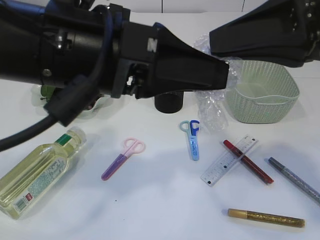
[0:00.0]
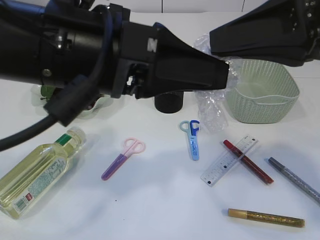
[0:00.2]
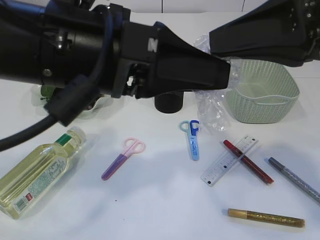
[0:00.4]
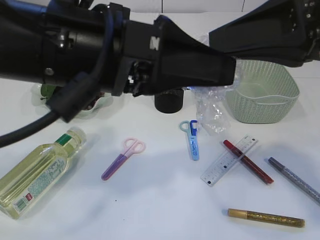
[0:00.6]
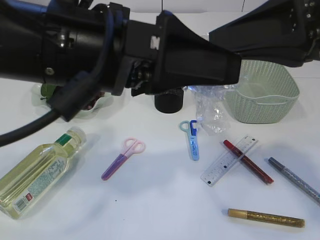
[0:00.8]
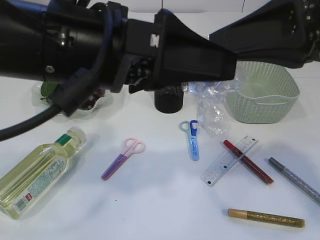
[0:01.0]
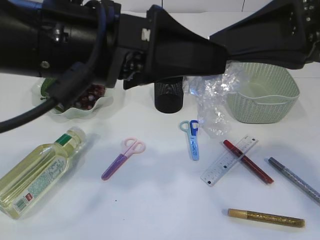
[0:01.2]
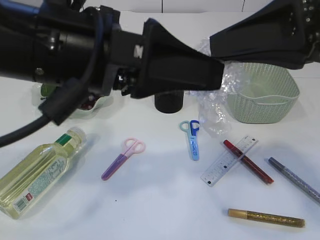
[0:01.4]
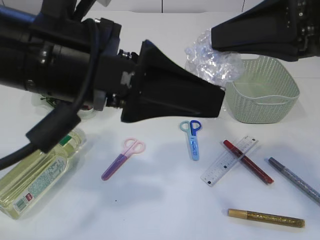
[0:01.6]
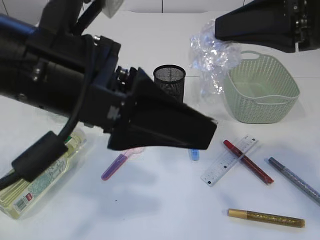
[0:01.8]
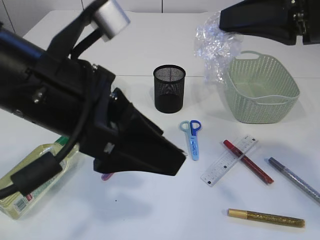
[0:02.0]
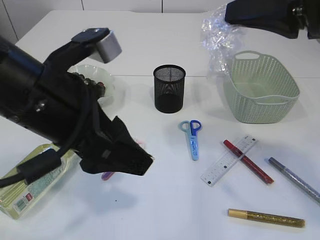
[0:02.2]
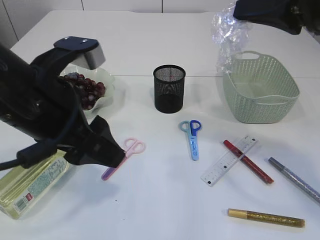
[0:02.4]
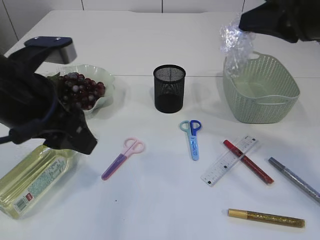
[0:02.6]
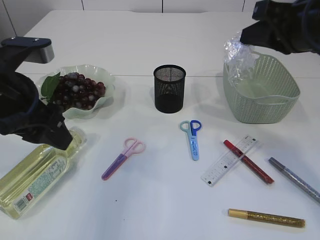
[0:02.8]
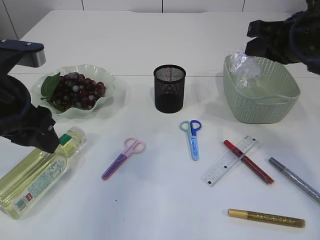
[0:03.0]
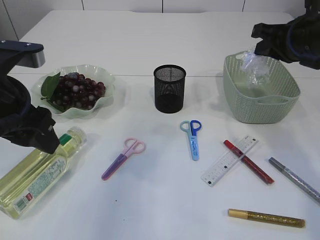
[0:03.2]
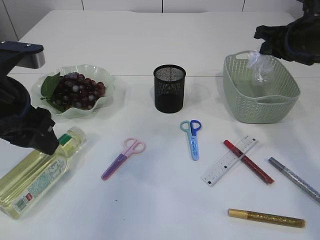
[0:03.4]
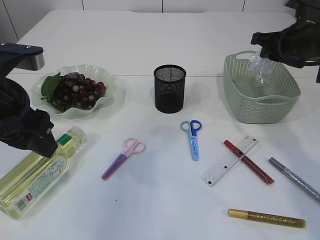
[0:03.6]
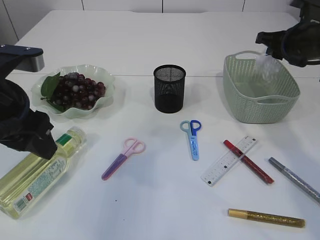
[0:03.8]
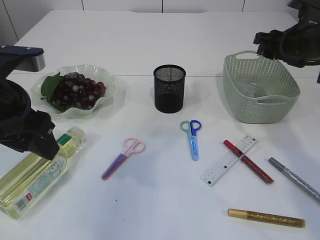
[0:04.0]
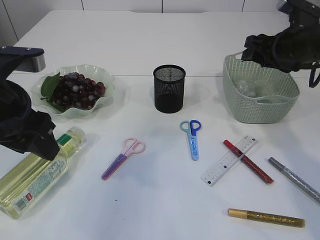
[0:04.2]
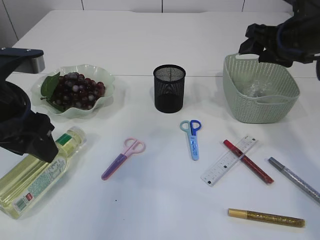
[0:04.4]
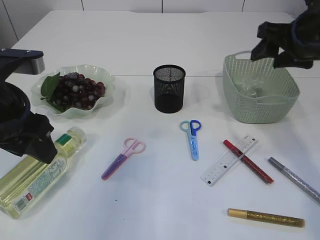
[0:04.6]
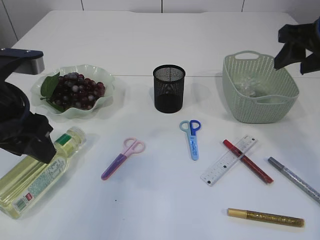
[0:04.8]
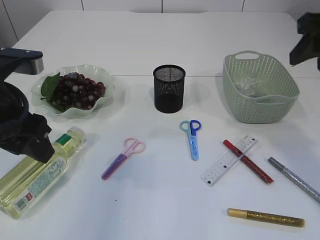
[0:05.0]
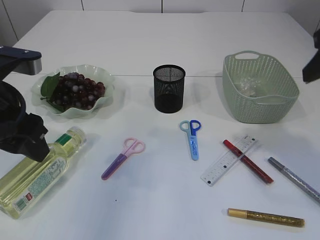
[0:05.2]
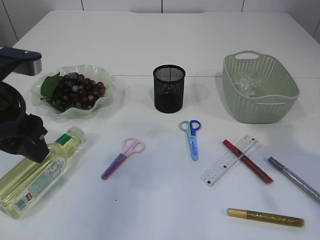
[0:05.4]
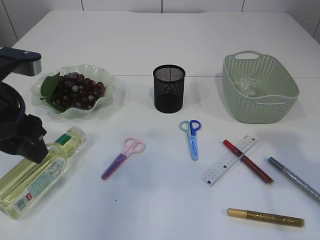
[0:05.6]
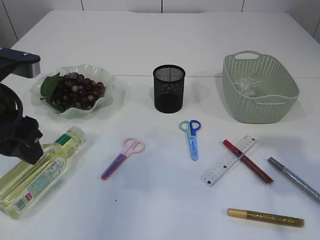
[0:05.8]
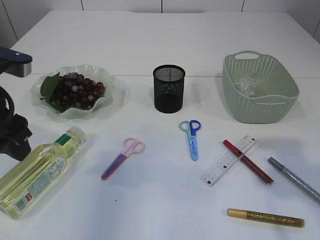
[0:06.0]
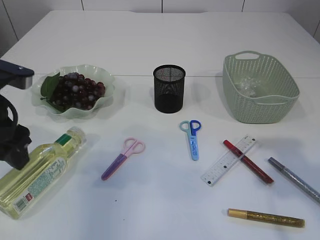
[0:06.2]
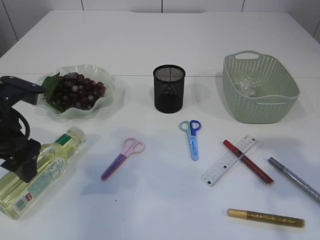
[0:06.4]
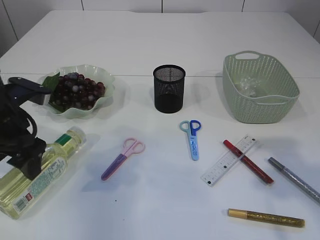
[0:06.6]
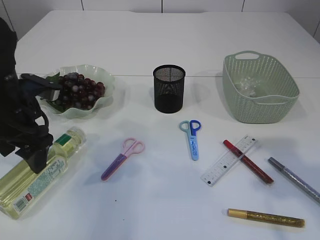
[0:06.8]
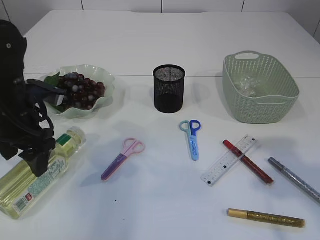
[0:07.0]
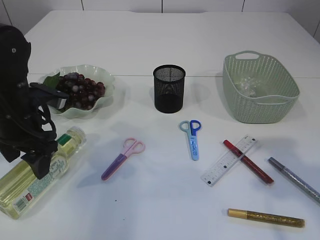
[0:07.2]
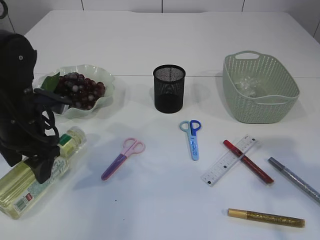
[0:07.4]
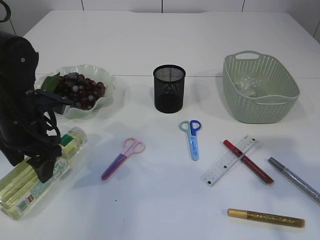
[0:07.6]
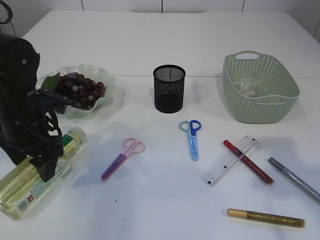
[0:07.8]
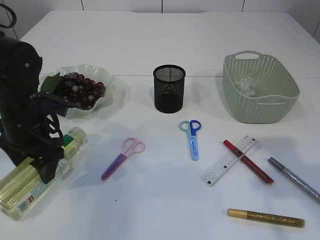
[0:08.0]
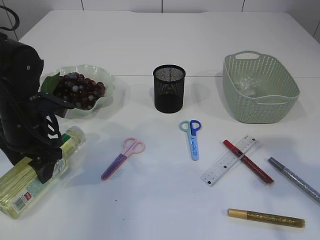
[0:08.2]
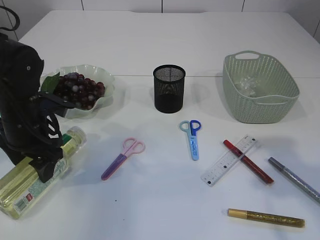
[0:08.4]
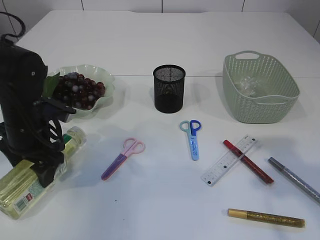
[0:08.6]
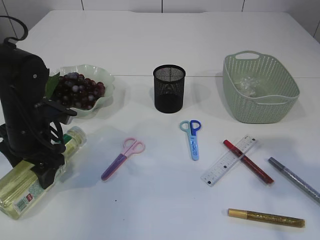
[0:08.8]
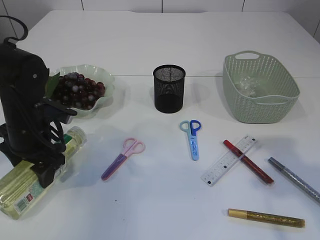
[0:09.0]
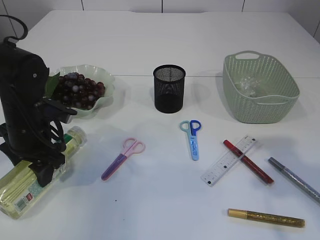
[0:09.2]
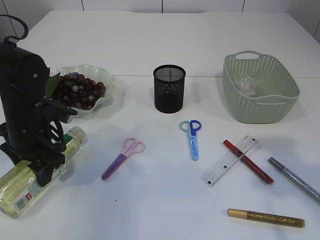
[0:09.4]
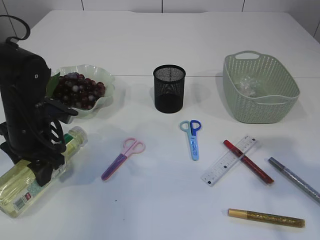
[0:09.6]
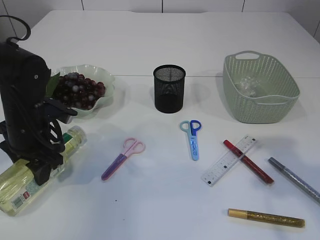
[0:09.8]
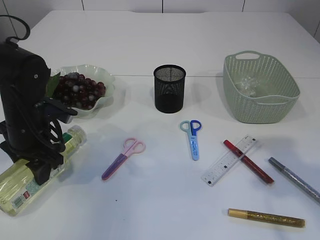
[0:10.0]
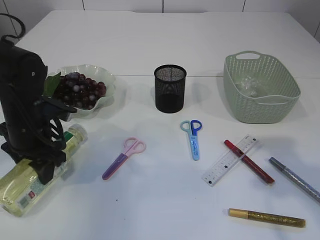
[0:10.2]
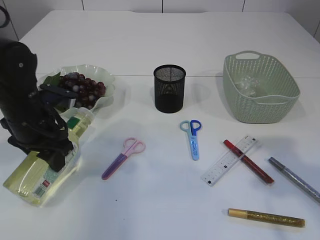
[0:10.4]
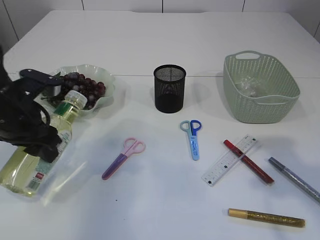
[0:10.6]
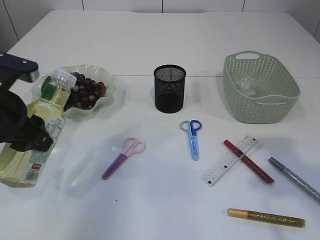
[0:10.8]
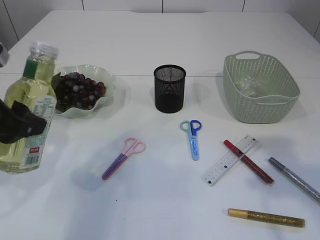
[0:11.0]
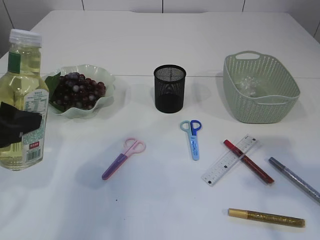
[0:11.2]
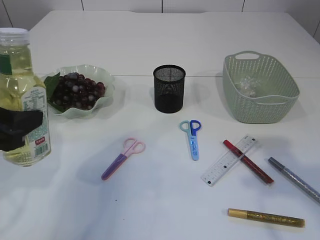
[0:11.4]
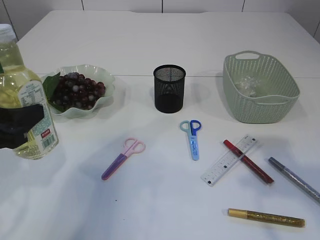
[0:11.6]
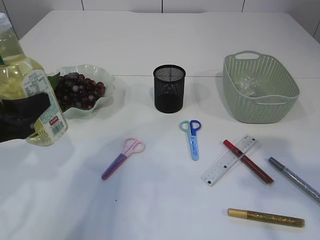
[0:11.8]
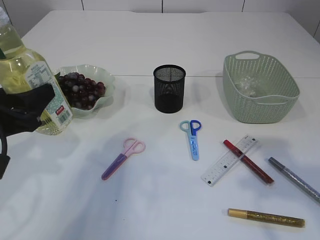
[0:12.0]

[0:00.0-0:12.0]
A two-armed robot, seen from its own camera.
Step, 0:02.0 to 0:04.6: Place the plastic in the basket.
Step, 0:04.8 to 0:10.8: Pick up the bottle with the left arm.
0:00.0 to 0:01.6: The left gripper opens.
0:01.6 to 0:03.0: The left gripper moves to the left, downward and forward, approximately 15 cm. Meanwhile the right gripper is displaced forward and downward by approximately 15 cm.
0:03.0 to 0:04.4: The right gripper is displaced forward by roughly 10 cm, and opens its fingers.
0:04.4 to 0:06.0: The right gripper goes approximately 25 cm backward.
0:06.0 to 0:07.6: The left gripper travels downward and forward by about 10 cm.
0:07.6 to 0:10.4: The grippers make only small movements.
0:10.4 to 0:12.0: The left gripper is displaced backward by roughly 10 cm.

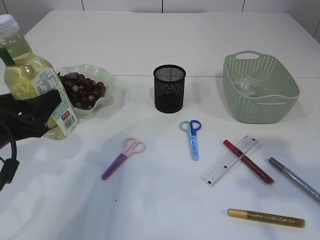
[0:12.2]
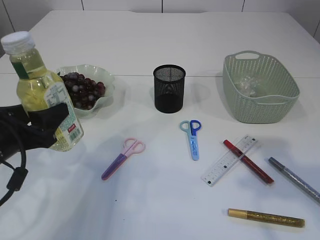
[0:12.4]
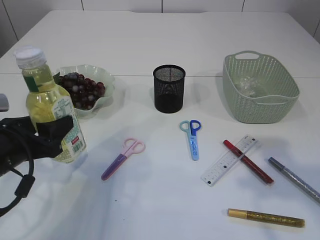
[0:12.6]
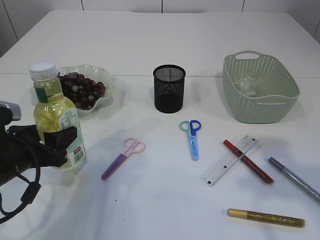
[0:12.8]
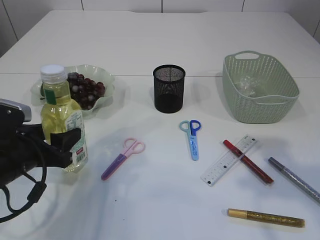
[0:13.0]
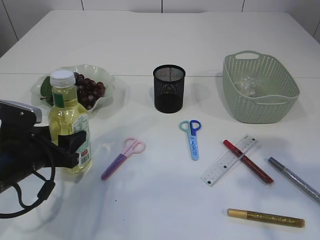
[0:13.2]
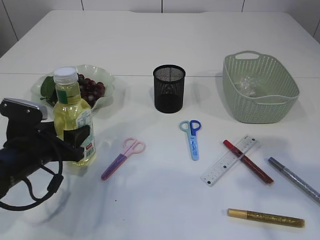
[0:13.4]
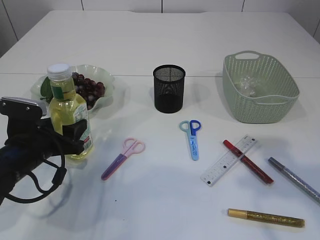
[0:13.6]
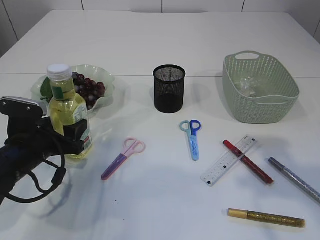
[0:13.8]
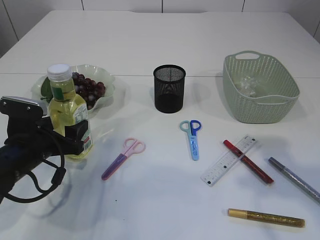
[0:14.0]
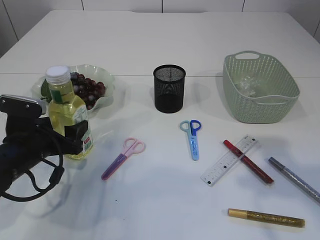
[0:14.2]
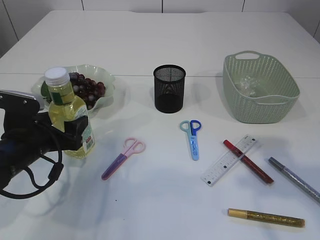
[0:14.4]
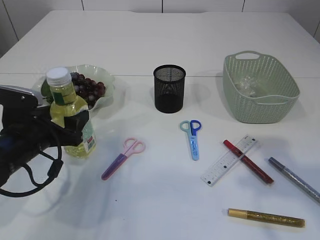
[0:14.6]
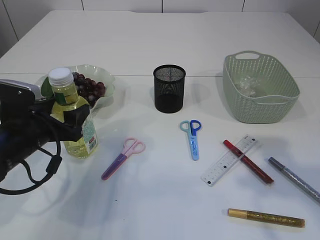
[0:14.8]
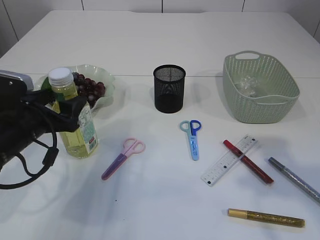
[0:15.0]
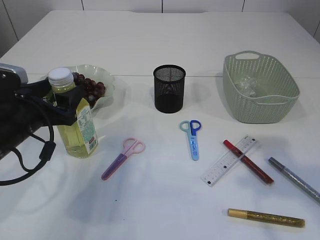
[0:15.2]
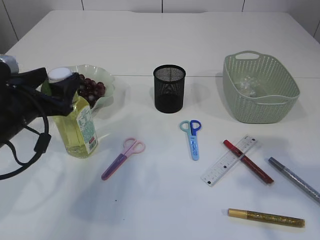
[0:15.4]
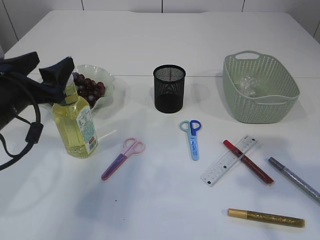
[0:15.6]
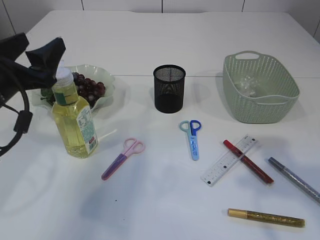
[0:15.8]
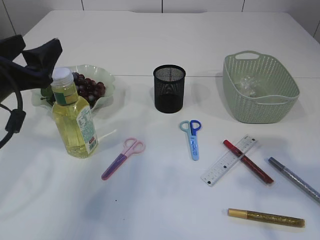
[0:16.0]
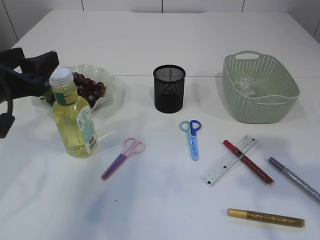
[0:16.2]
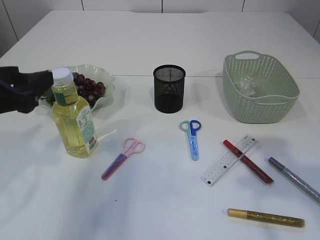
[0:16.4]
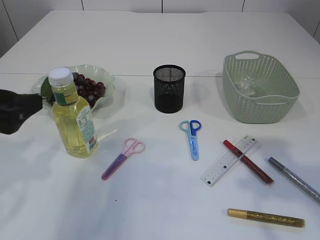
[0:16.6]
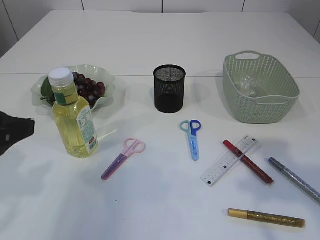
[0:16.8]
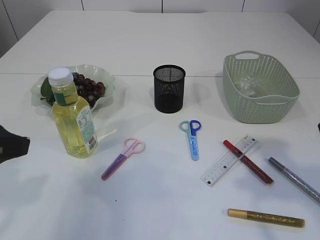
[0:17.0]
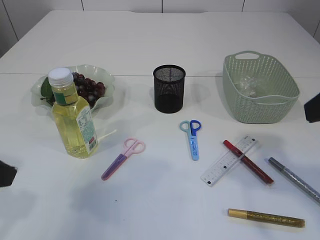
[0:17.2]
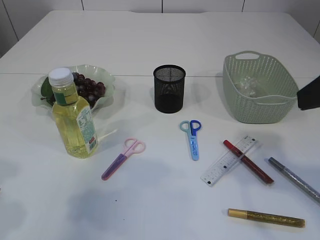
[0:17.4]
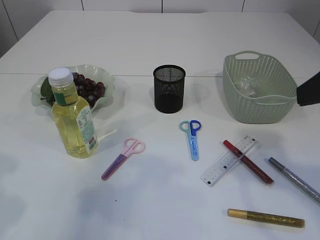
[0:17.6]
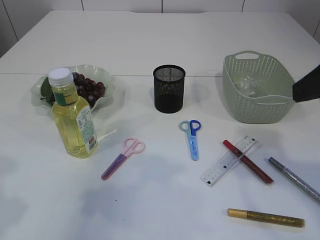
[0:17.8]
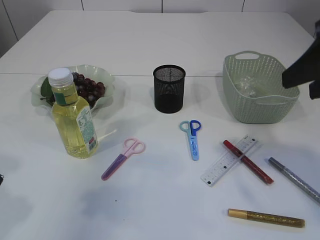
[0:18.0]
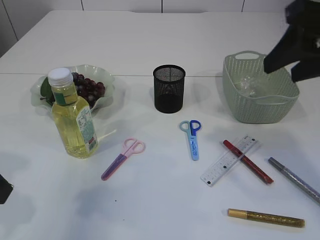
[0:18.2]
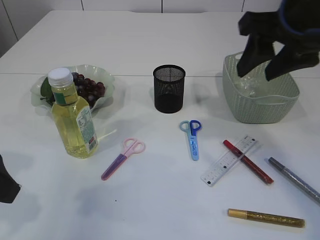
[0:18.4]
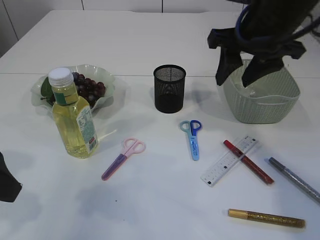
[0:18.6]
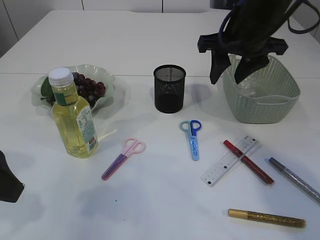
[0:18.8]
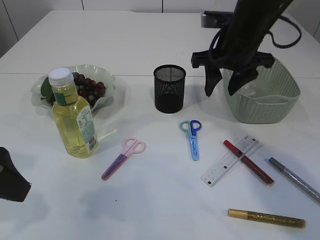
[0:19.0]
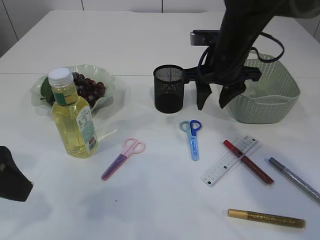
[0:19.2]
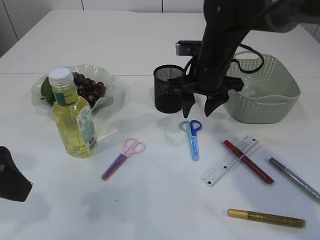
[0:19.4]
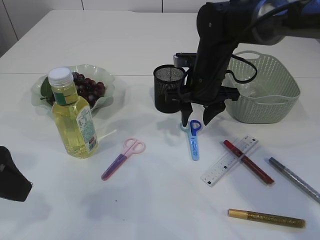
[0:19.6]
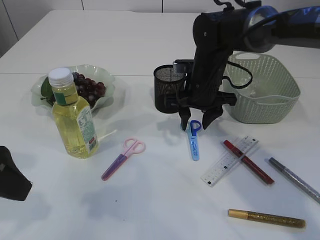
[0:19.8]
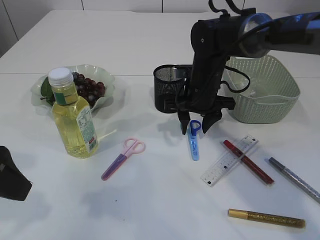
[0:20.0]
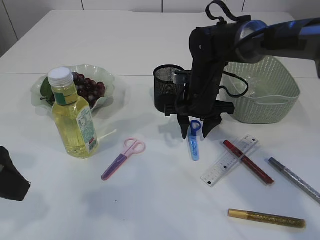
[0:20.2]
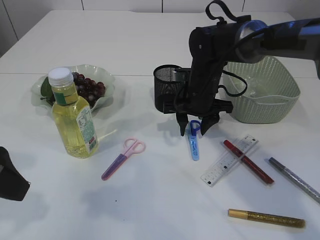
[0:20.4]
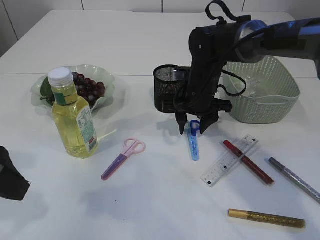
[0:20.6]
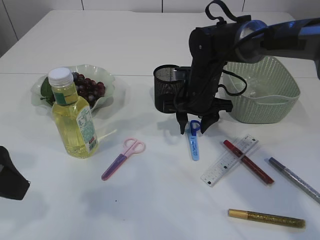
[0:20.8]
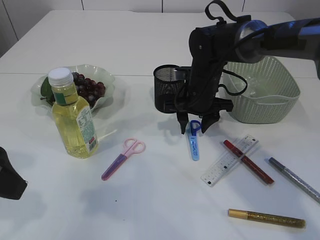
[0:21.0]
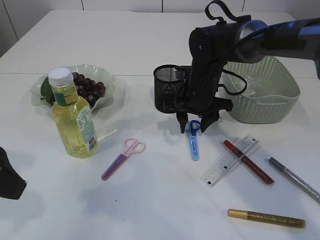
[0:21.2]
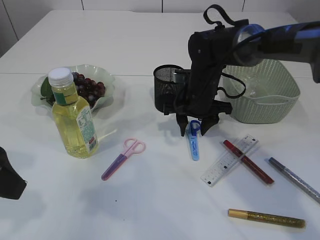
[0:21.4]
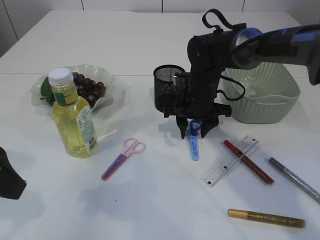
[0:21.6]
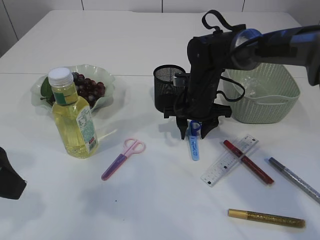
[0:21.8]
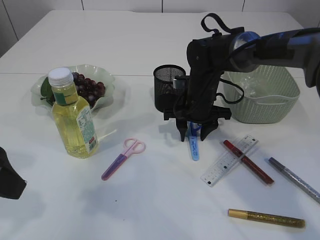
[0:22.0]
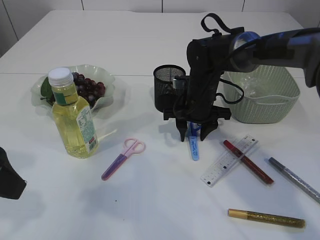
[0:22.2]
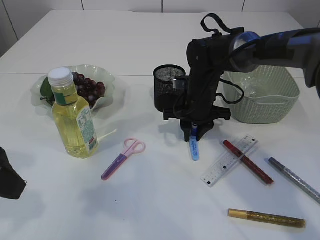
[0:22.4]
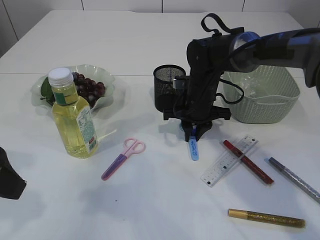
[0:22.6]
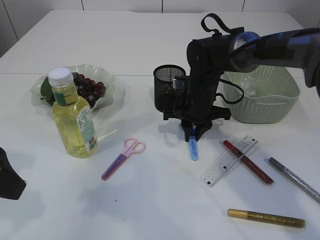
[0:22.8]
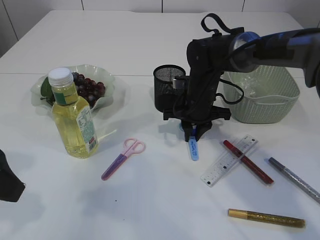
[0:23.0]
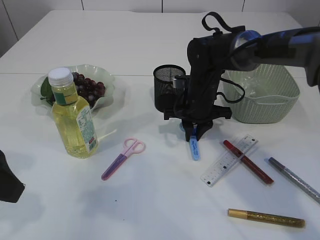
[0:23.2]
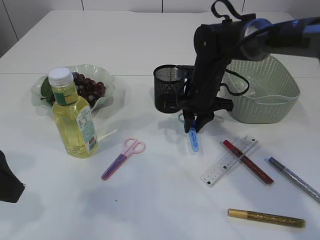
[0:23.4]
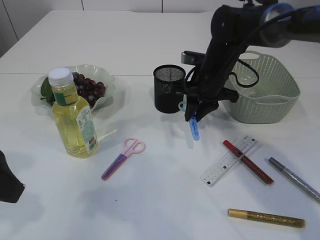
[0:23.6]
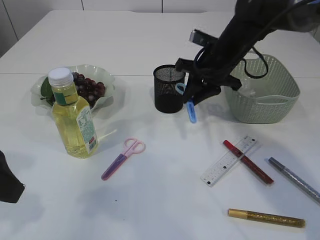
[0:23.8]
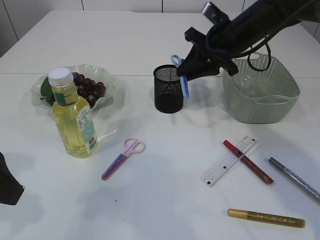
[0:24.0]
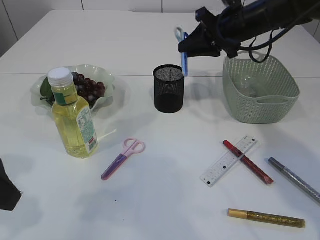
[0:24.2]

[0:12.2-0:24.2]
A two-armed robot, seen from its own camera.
Step, 0:12.2 to 0:16.6: Place the bottle.
Step, 0:16.8 to 0:23.6: pick up the blue scissors.
0:12.2 to 0:13.8: The left gripper heads downward and forward, covering about 10 cm.
0:13.8 to 0:15.2: The left gripper travels upward by approximately 5 cm.
0:15.2 to 0:16.6: The left gripper heads upward and backward, covering some 10 cm.
0:16.6 to 0:18.2: The right gripper travels forward by approximately 10 cm.
0:18.2 to 0:19.8: The right gripper is displaced downward, forward and to the left by approximately 30 cm.
0:19.8 to 0:21.2: There are only small adjustments of the grippers.
0:21.2 to 0:22.6: The right gripper closes its fingers.
0:22.6 to 0:24.2: The right gripper is displaced upward and to the right by some 15 cm.
